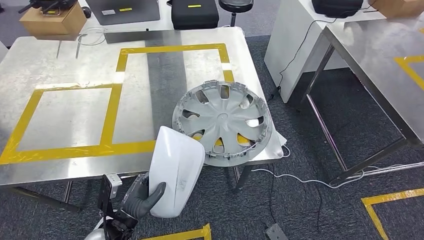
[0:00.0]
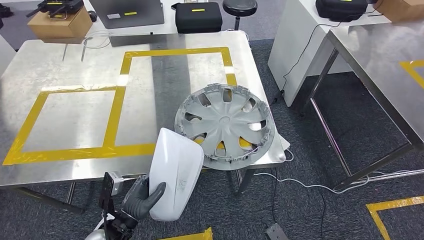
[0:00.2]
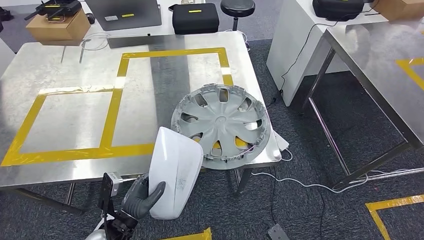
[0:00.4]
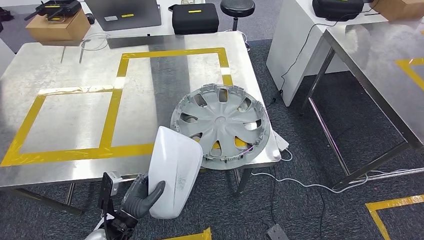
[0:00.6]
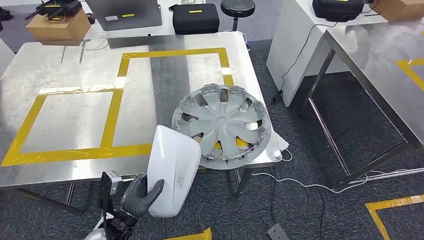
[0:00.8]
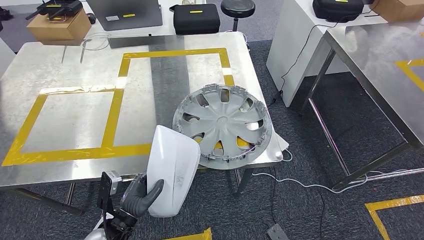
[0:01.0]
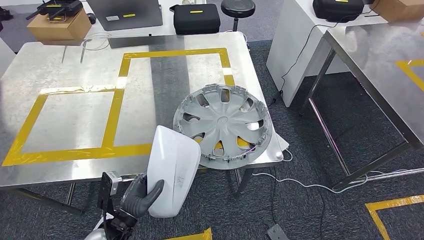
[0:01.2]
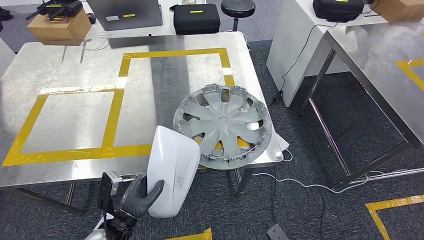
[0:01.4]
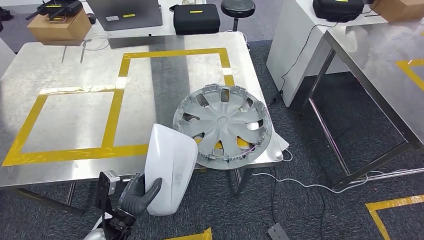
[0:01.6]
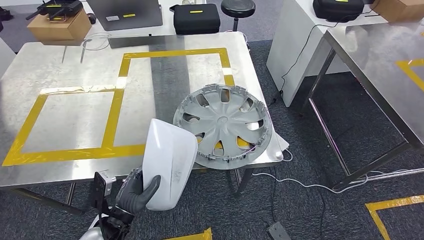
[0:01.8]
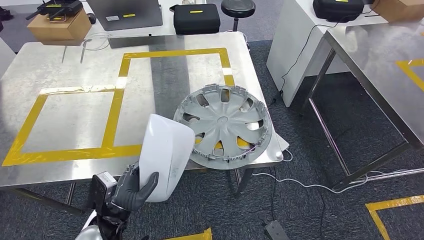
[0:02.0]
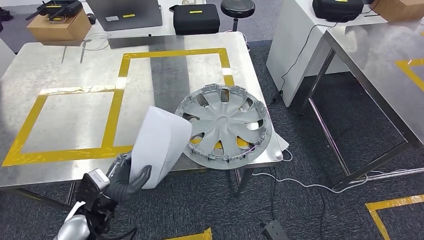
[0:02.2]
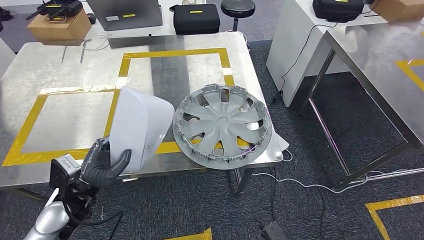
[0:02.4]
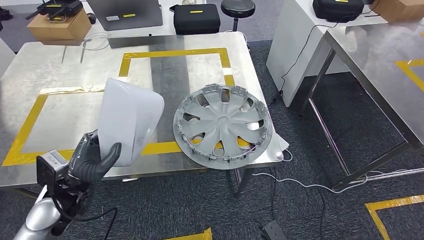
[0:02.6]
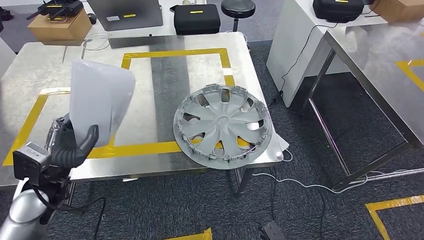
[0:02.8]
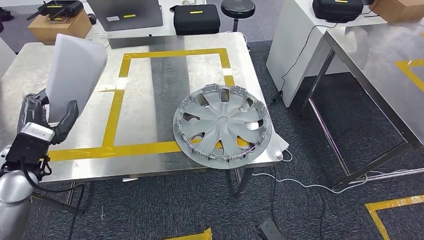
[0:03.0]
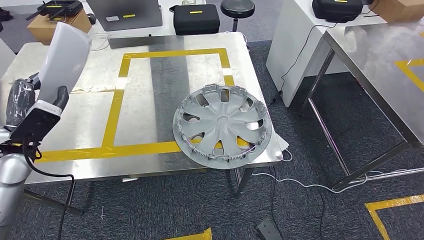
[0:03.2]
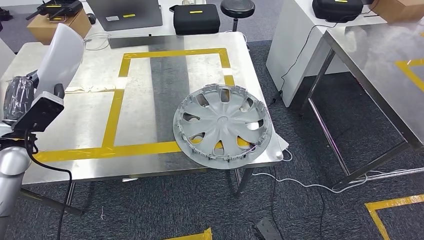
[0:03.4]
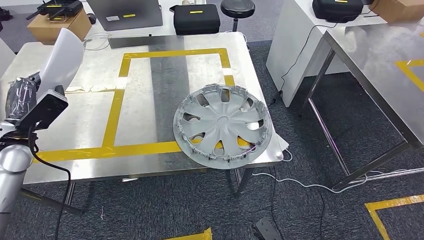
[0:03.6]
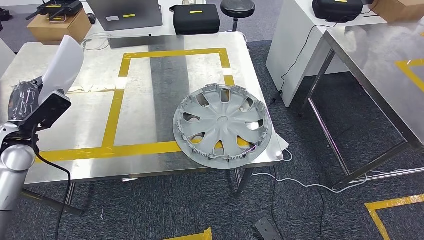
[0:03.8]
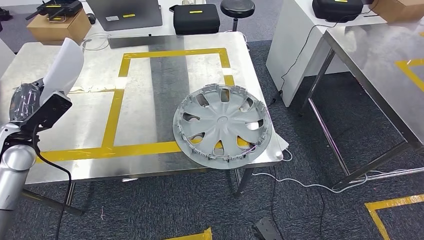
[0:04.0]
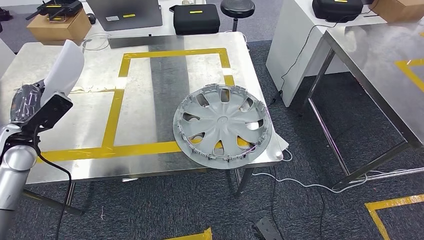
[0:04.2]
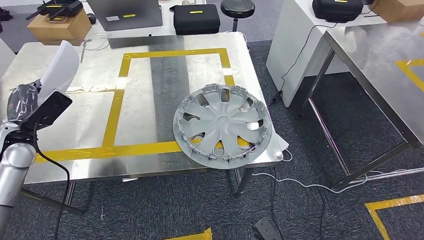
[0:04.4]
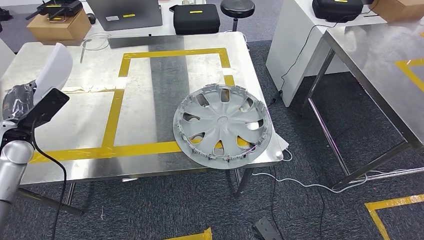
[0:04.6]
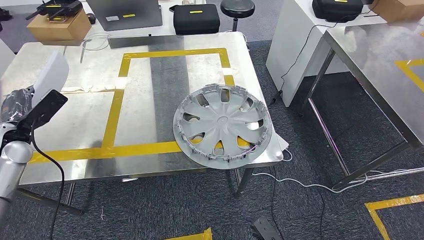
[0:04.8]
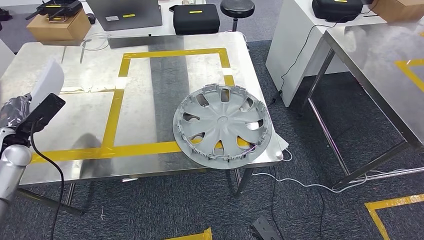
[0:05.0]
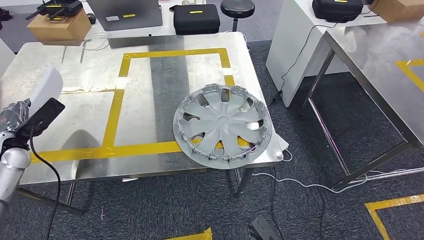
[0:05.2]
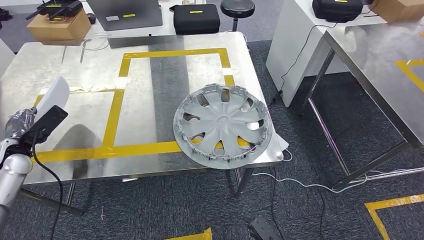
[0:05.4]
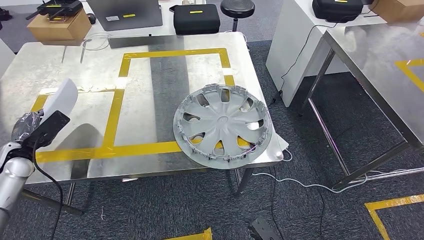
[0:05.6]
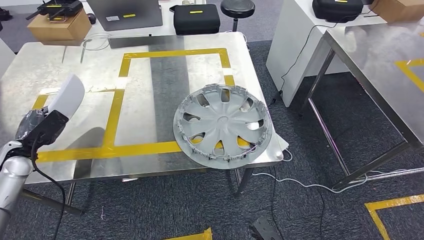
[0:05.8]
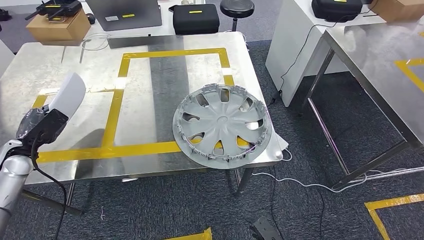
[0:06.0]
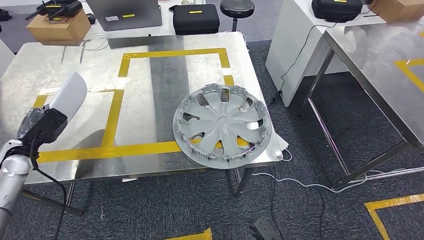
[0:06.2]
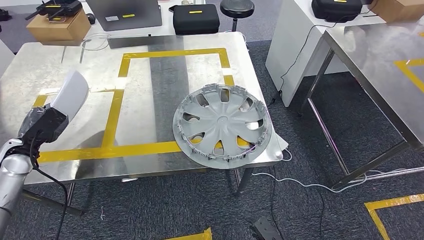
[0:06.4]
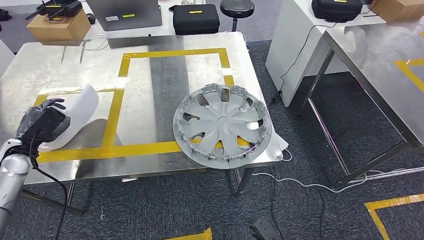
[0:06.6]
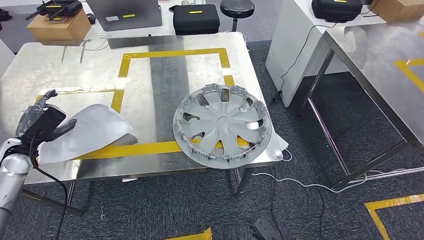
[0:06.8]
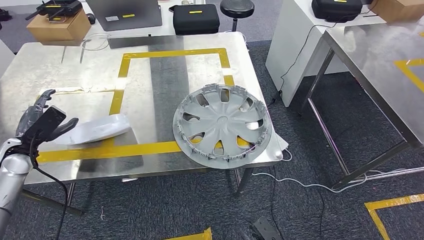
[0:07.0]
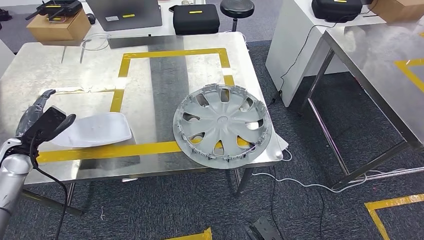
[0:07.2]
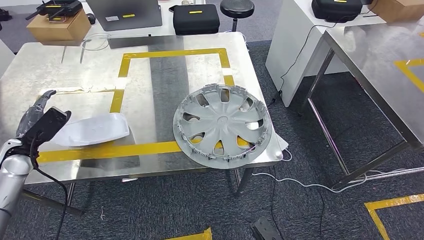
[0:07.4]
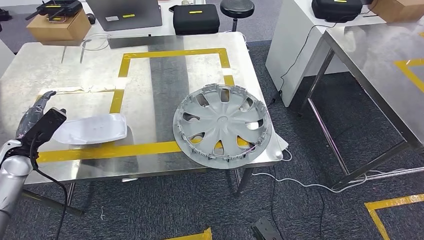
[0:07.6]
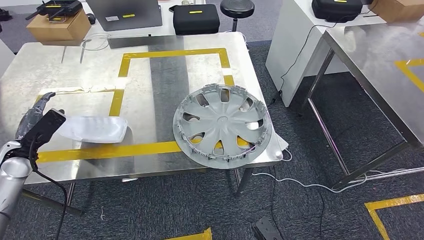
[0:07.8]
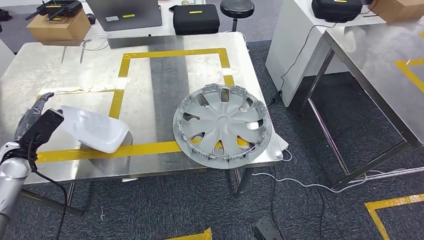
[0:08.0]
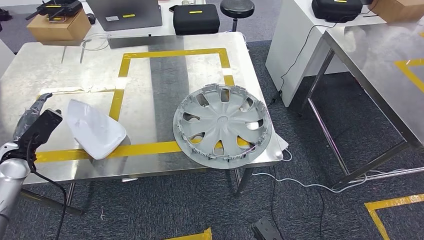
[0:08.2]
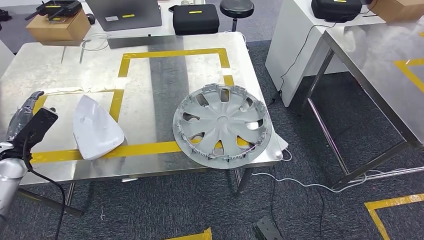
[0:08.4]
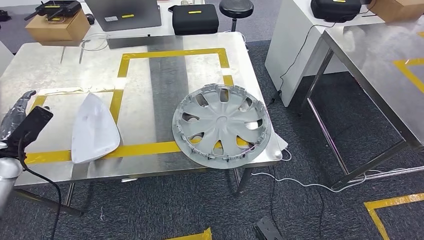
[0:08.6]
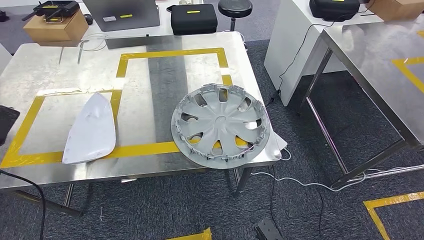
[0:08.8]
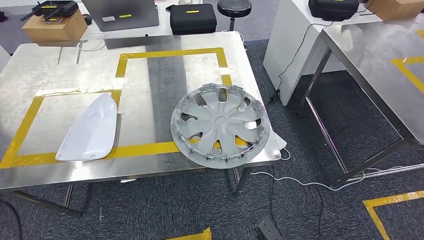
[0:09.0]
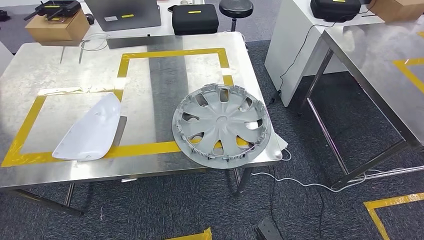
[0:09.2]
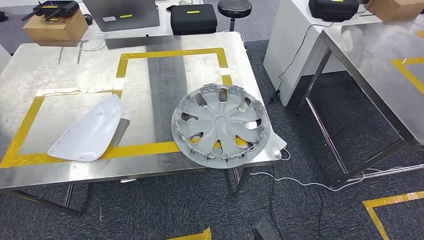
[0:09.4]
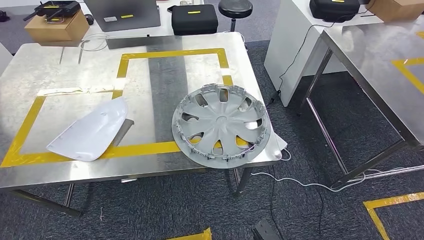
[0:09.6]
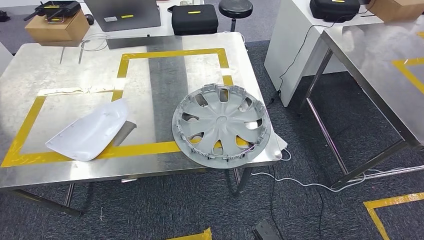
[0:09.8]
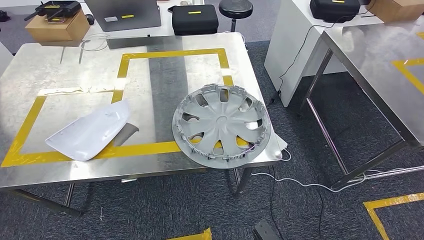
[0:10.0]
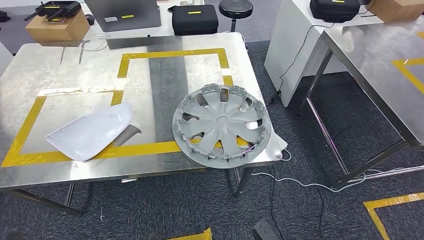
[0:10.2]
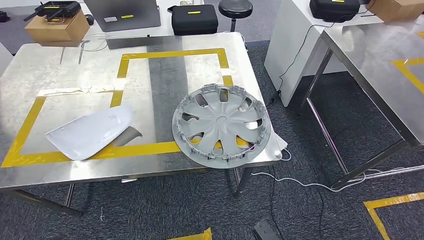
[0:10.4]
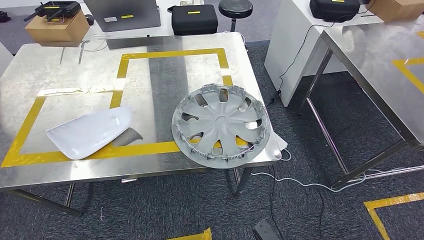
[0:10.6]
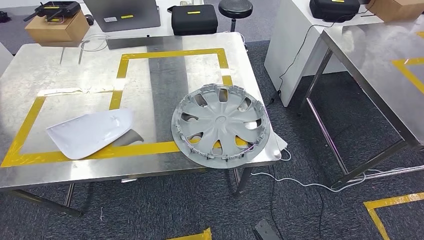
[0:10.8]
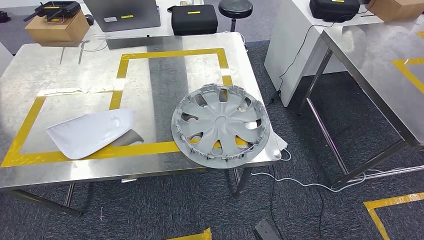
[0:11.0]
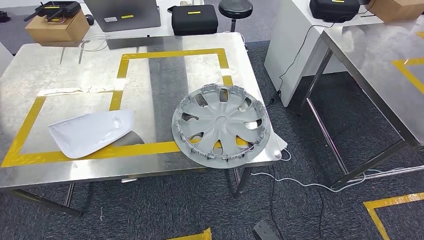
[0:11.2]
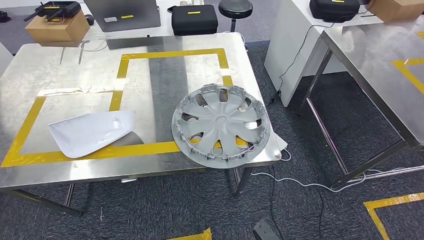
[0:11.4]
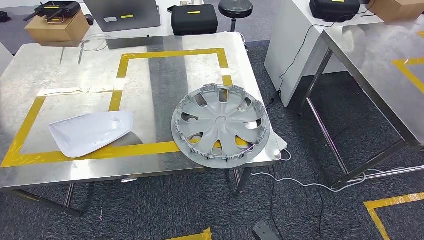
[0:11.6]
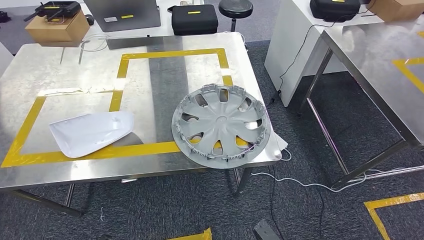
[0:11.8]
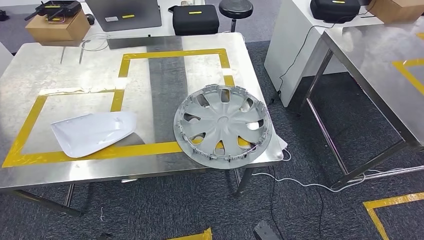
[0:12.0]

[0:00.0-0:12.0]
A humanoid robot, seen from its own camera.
Step, 0:00.0 to 0:09.4: Insert the small component into the corresponding slot on the workbench.
0:01.6 to 0:03.0: The left hand shifts some 25 cm to the left, upward and forward.
0:03.0 to 0:04.4: The left hand heads to the left and forward, covering about 10 cm.
0:04.4 to 0:06.0: The left hand heads downward, covering approximately 5 cm.
0:06.0 to 0:07.6: Both hands stay about where they are.
0:07.6 to 0:09.0: The left hand travels to the left and backward by about 15 cm.
0:09.0 to 0:10.4: The left hand is displaced downward, backward and to the right by approximately 35 cm.
0:10.4 to 0:12.0: The left hand heads to the right, covering roughly 10 cm.

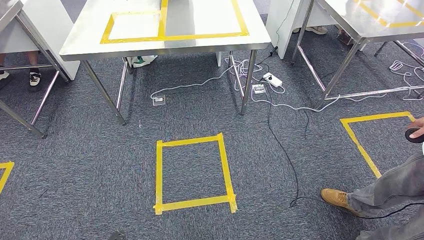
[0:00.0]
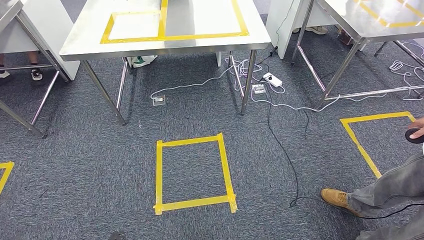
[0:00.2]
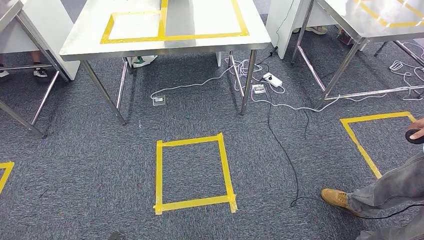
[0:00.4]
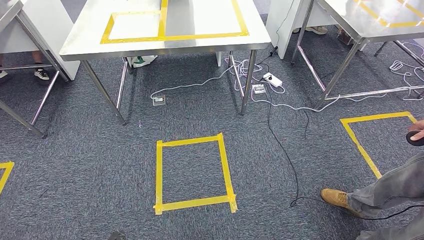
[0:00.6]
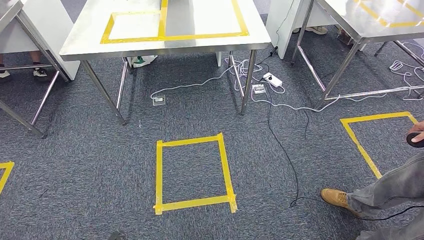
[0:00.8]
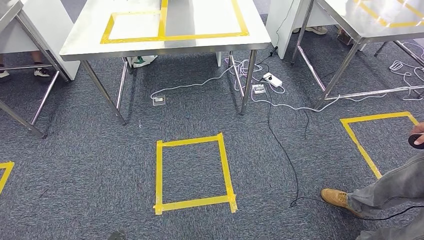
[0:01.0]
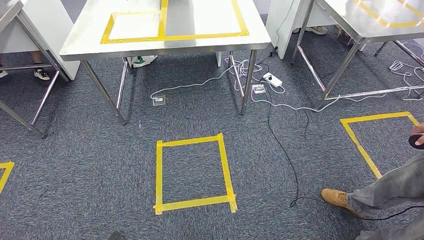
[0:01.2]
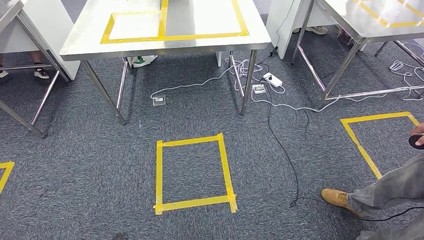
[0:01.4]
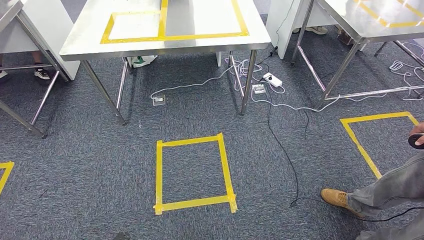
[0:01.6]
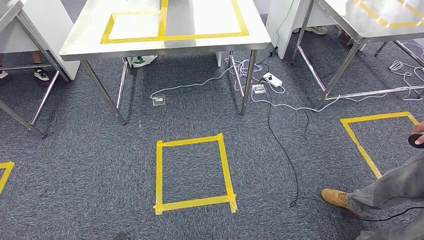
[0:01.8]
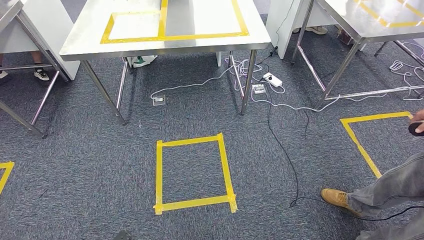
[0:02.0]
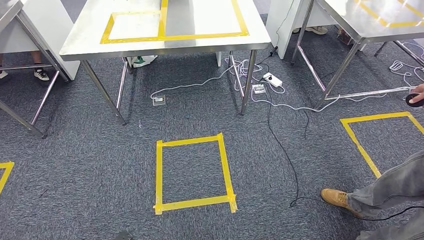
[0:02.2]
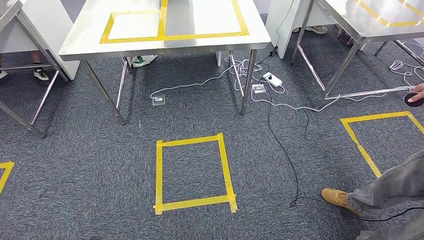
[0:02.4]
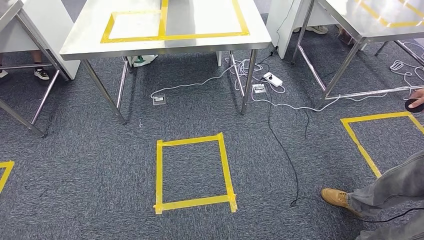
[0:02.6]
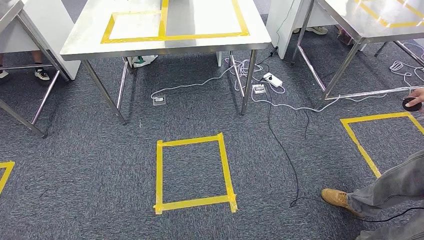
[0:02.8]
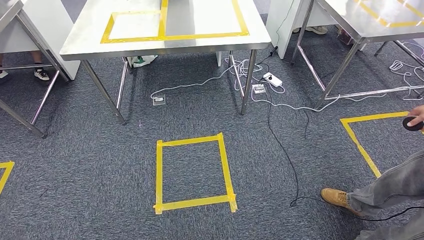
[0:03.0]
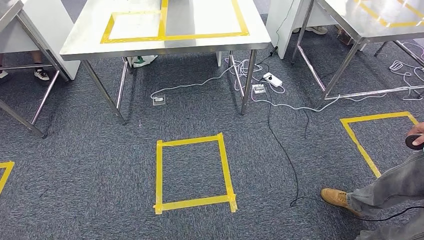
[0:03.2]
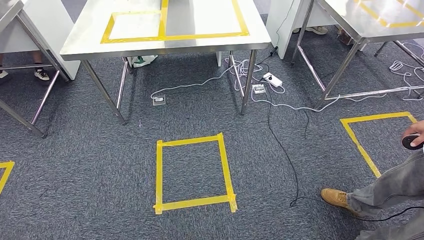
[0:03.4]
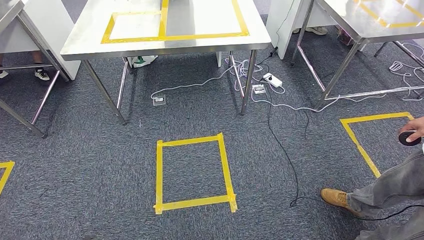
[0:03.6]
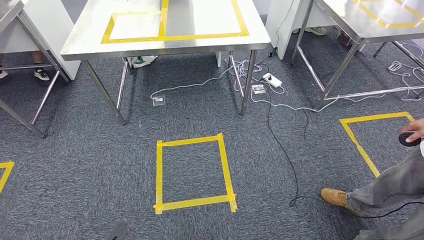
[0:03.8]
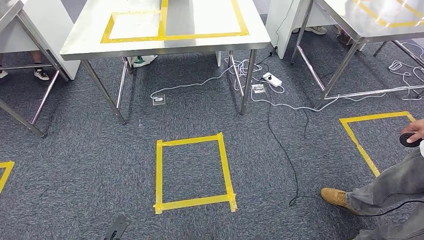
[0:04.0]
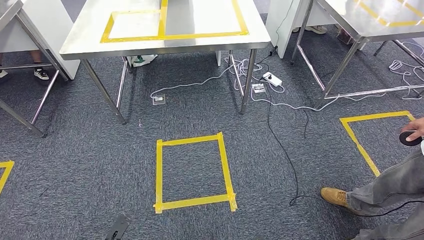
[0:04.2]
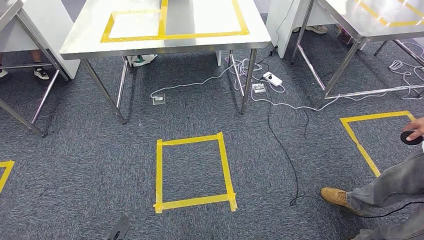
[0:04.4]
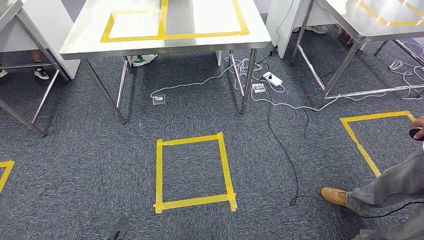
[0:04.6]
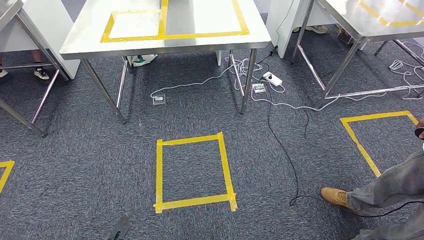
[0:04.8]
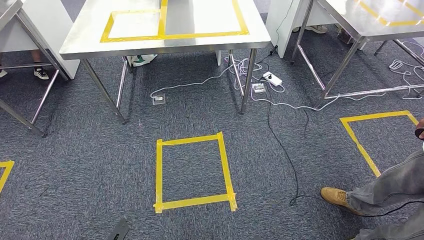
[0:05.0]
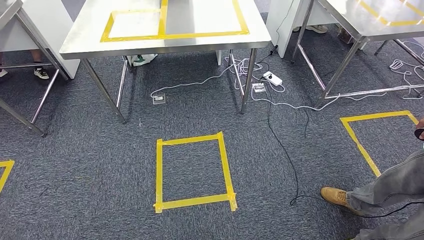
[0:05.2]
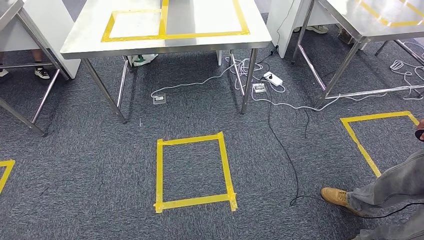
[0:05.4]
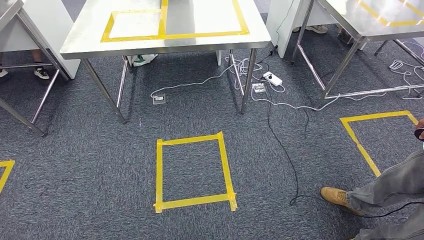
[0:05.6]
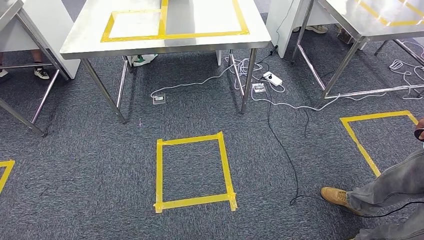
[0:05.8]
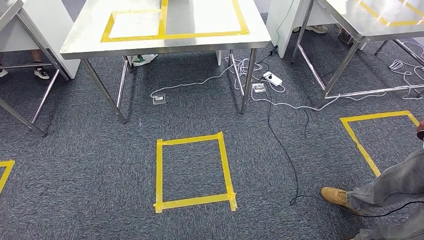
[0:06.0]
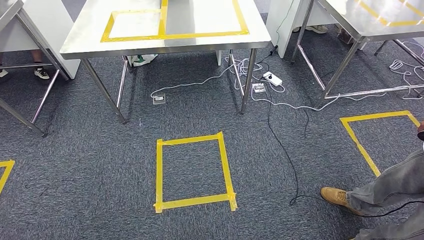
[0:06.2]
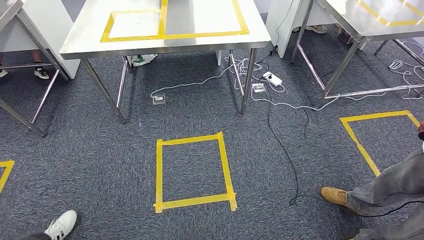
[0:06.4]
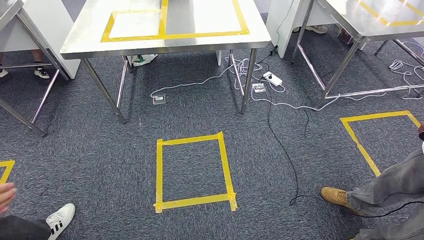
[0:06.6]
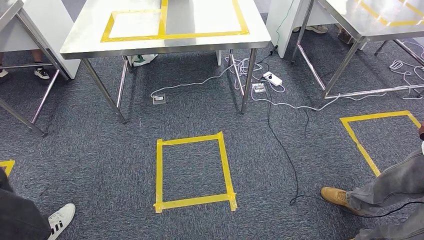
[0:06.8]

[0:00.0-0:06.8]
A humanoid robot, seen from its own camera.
0:00.0 to 0:01.4: The hands stay close to where they were, moving slightly.
0:01.4 to 0:02.8: The right hand heads to the right and backward, covering about 15 cm.
0:02.8 to 0:04.0: The right hand is displaced to the left and forward by about 15 cm.
0:05.4 to 0:06.8: The hands move only a little.